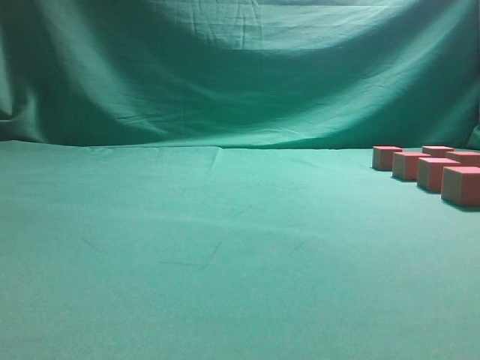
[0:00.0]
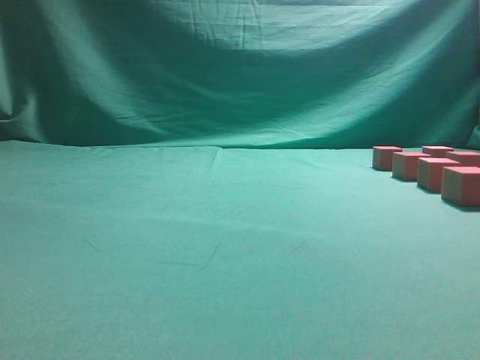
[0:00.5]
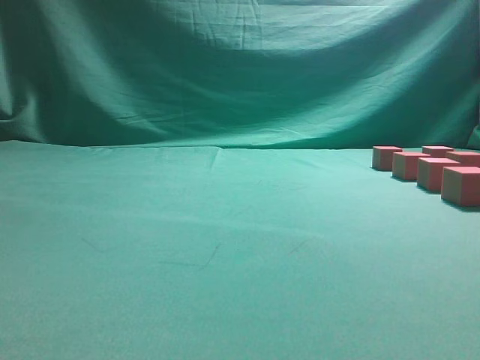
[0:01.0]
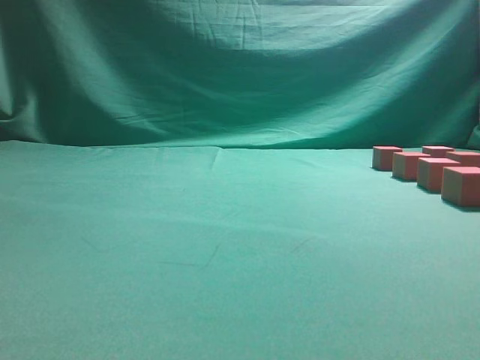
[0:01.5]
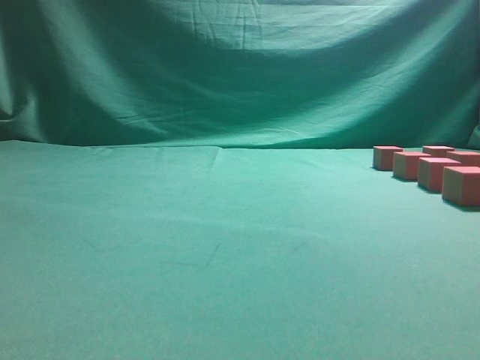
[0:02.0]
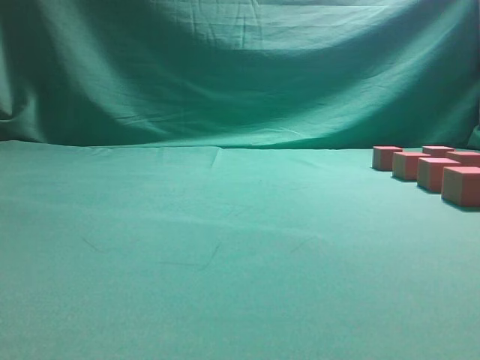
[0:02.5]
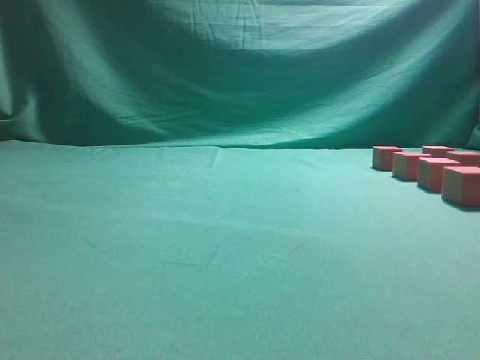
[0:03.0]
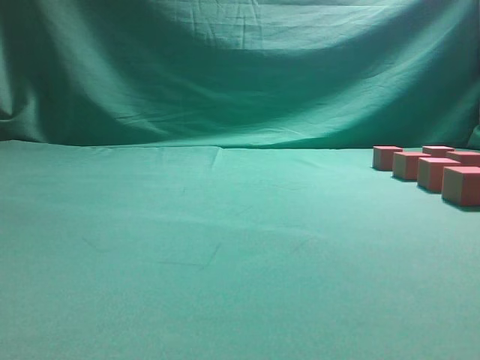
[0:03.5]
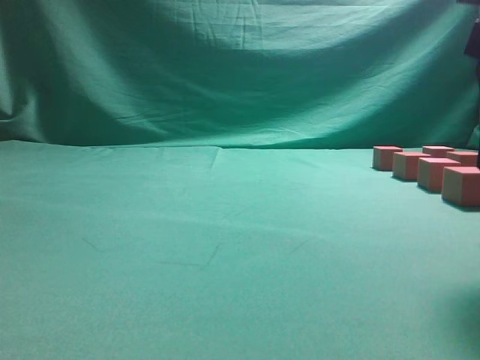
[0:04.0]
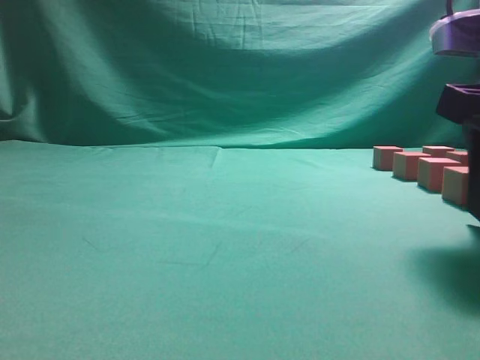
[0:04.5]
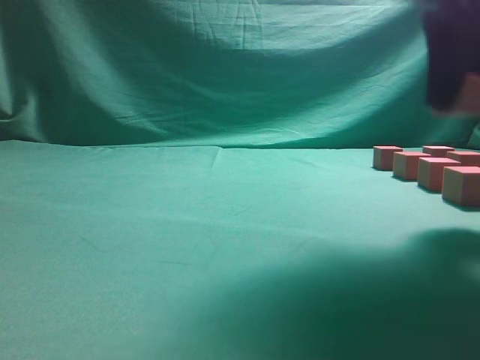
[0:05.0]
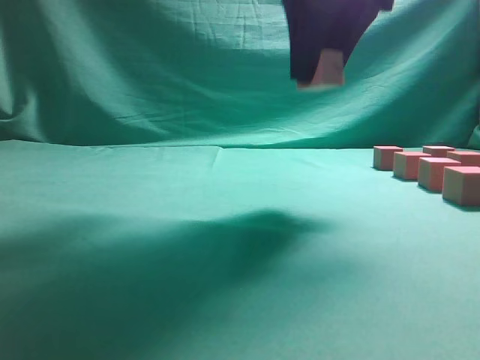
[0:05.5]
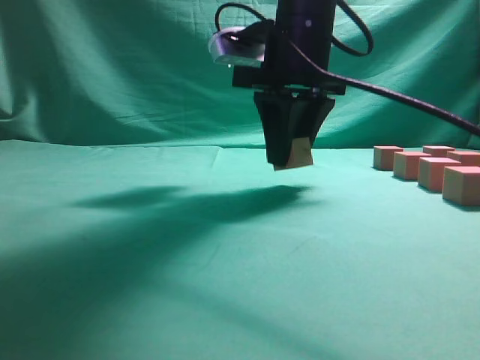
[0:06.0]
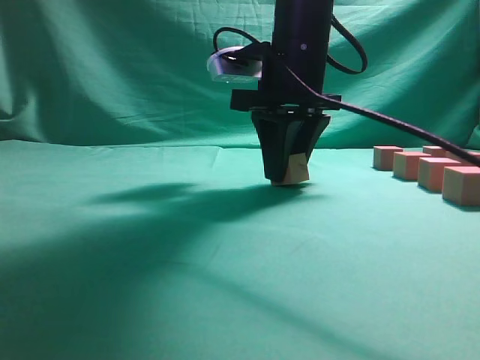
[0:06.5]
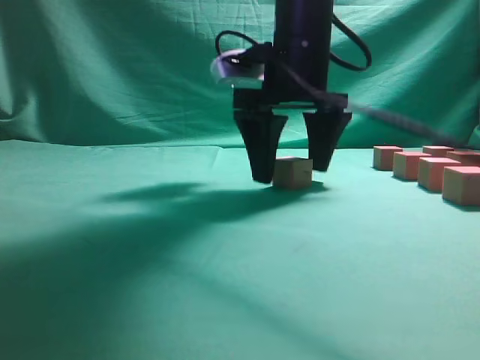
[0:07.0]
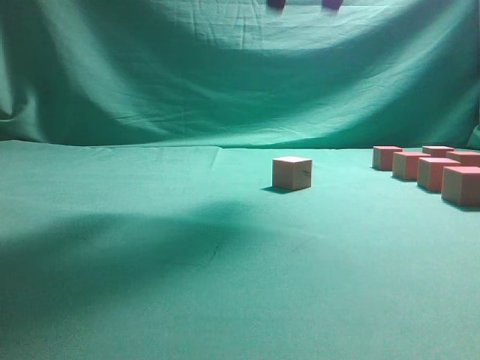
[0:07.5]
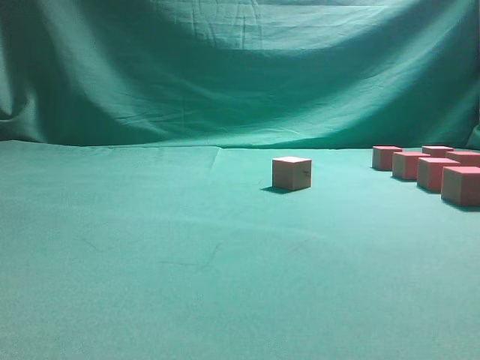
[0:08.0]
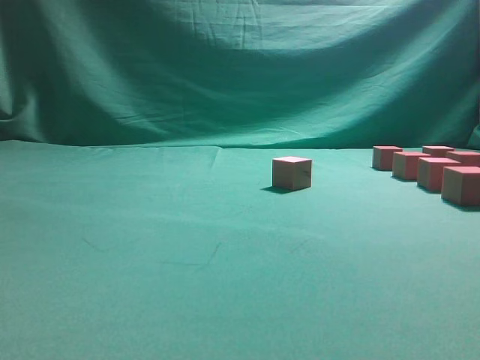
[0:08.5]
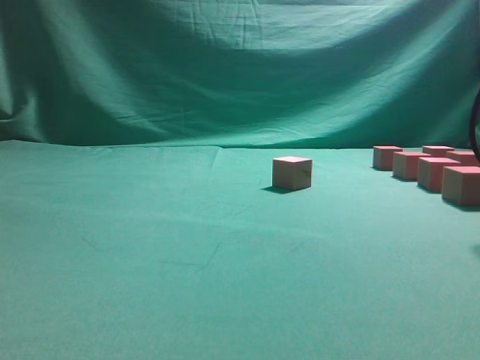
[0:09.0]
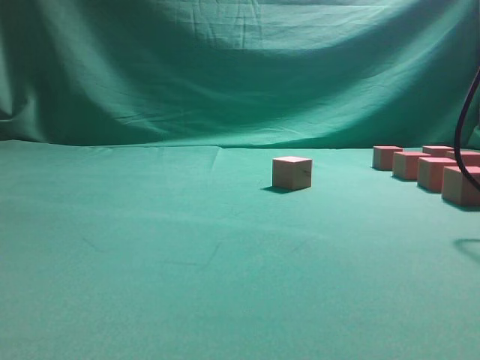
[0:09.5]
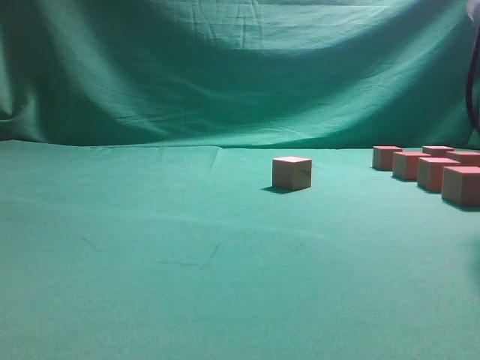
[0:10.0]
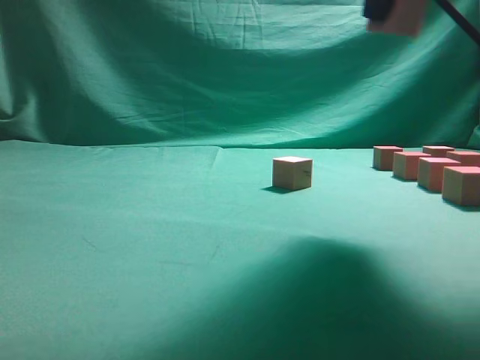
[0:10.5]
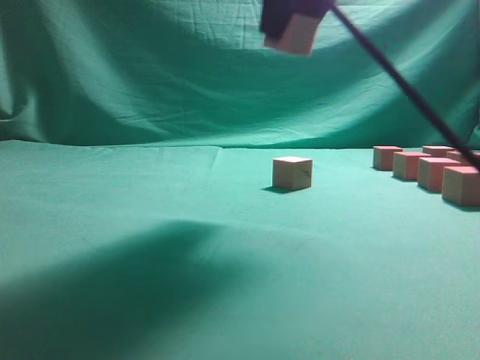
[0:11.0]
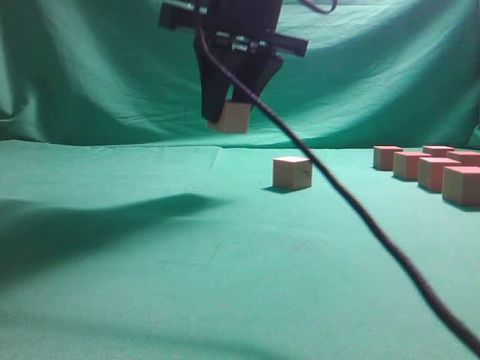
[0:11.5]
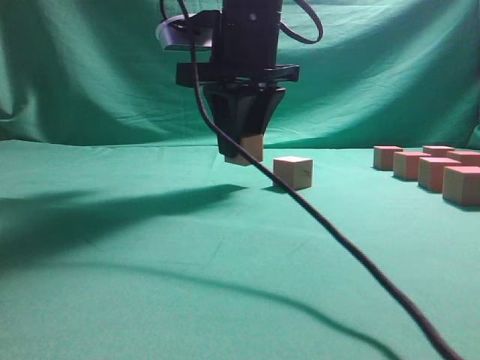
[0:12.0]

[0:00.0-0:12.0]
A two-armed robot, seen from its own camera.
Task of the whole recording: pick up the multiple cubes in two columns one by one and place them in another position on the table.
Step, 0:00.0 to 0:04.5: Pick up the block on the table.
Step, 0:05.0 to 0:07.0: Place the block at the correct position to assemble the letter S.
Step, 0:07.5 to 0:09.5: Pick up the block on the table.
0:02.0 to 0:04.0: The right gripper travels forward and to the left by roughly 20 cm, and opens its fingers.
0:04.0 to 0:06.0: The right gripper goes some 25 cm forward and to the left, and closes.
0:06.0 to 0:08.0: The right gripper heads to the right, upward and backward, covering approximately 30 cm, and opens its fingers.
0:08.0 to 0:10.0: The right gripper is displaced downward by about 15 cm, and closes up.
0:10.0 to 0:12.0: The right gripper heads to the left, covering roughly 25 cm.

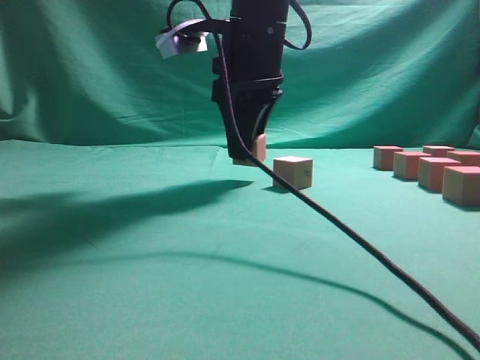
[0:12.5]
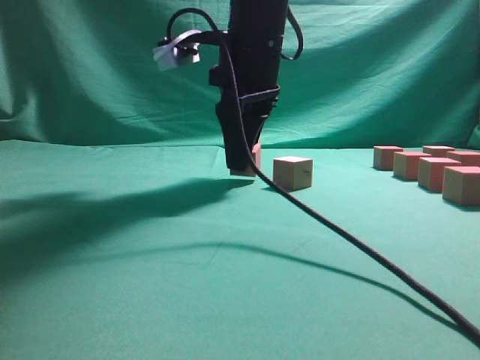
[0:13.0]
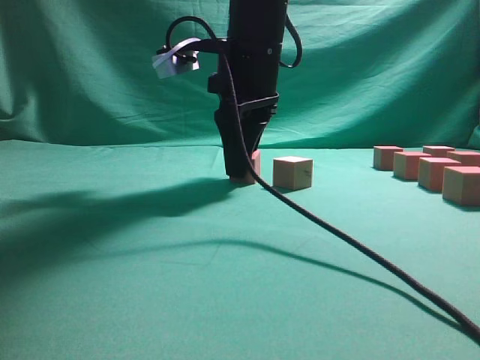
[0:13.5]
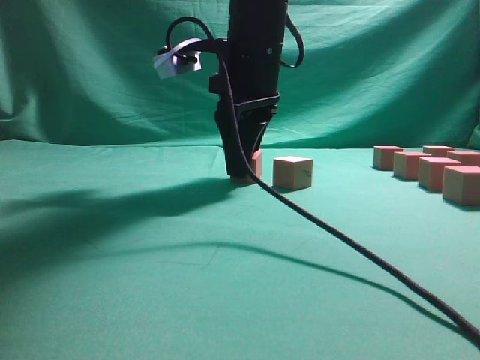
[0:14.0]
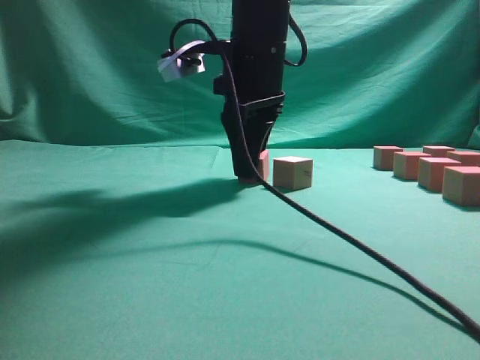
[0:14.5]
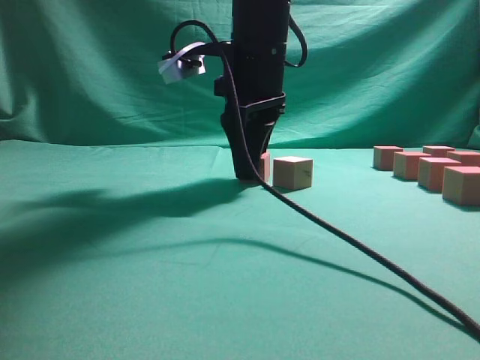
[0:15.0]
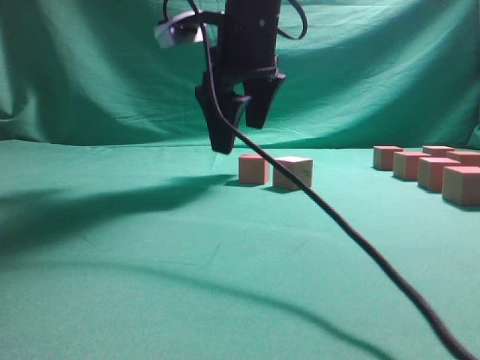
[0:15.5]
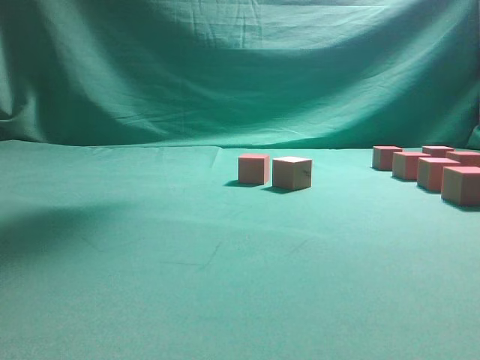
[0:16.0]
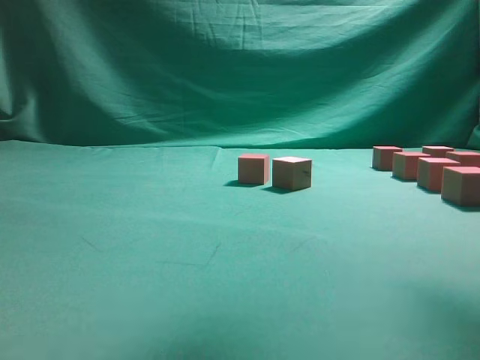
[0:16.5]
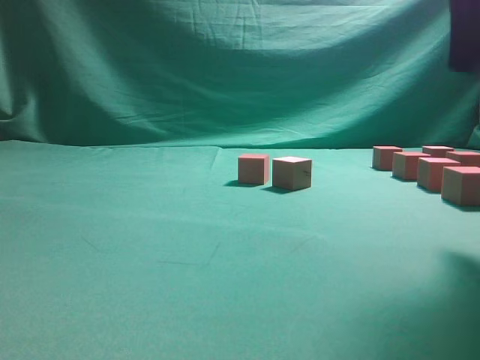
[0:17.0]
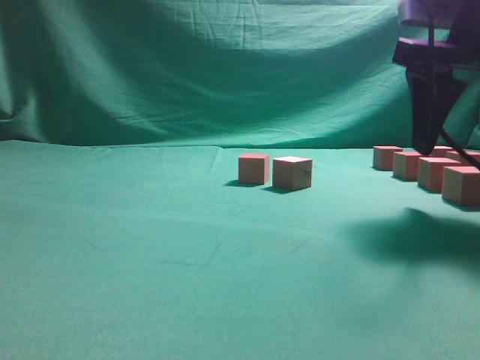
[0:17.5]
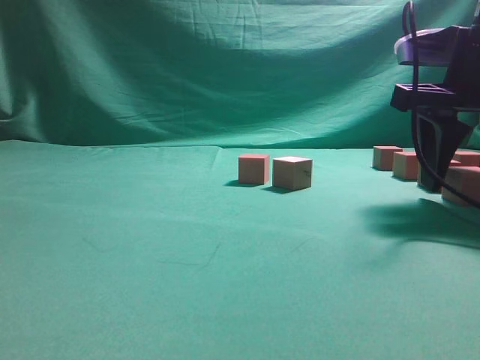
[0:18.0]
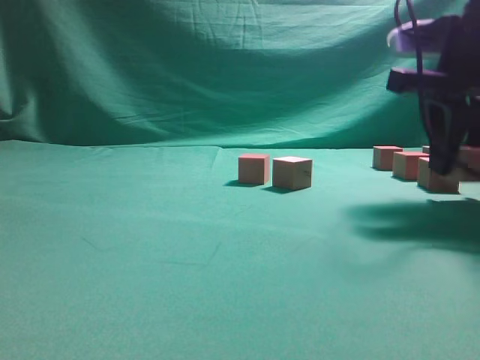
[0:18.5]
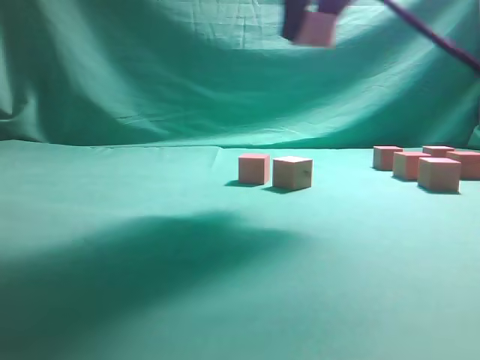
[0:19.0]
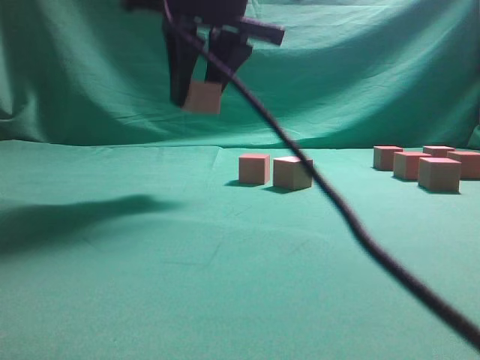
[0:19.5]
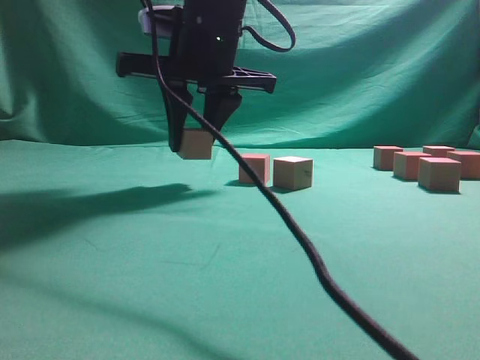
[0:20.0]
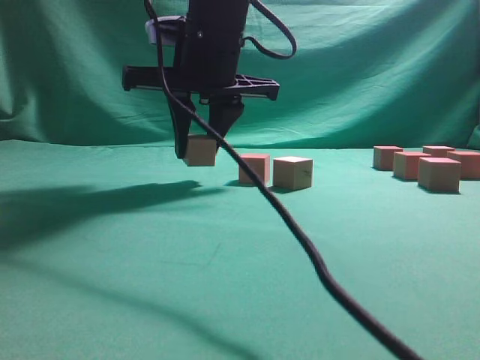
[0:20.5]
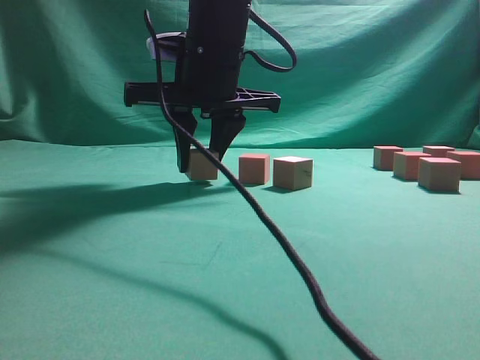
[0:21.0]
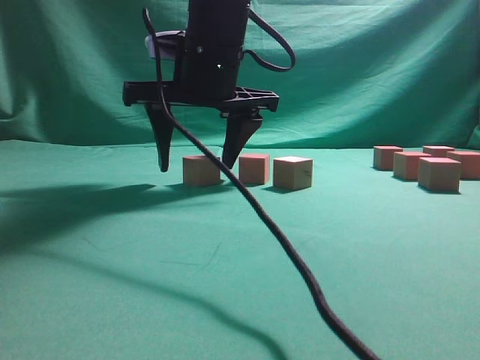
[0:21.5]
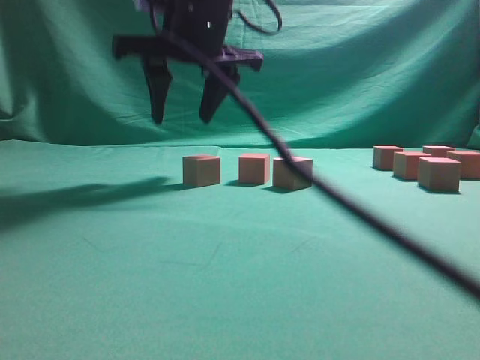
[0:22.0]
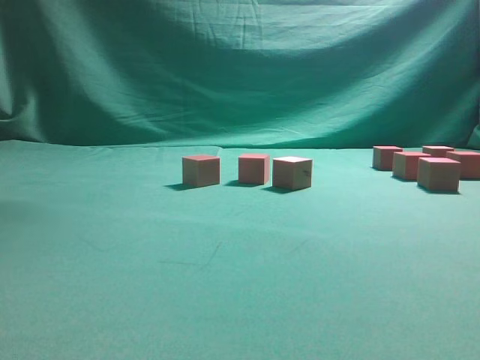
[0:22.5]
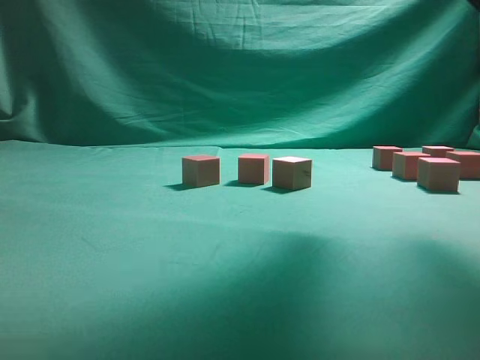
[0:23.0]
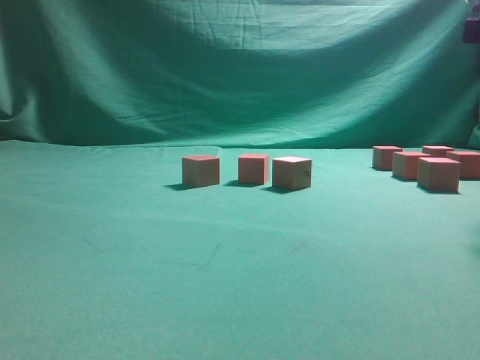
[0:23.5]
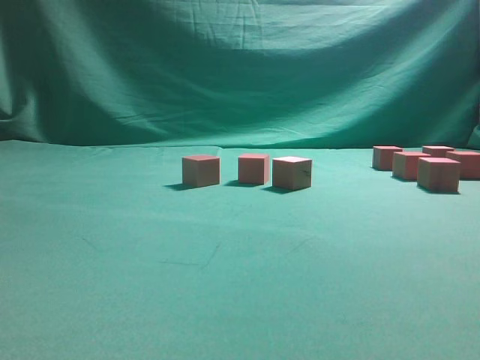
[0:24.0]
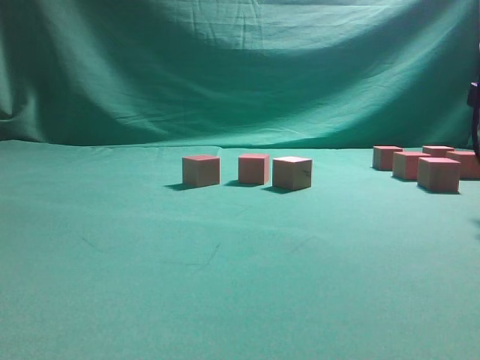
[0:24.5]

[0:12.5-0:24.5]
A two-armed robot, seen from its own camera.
Task of the whole recording: pick up the multiple cubes in two columns one by one and place them in another position on the table.
Step, 0:12.5 to 0:15.5: Place the block at the correct position to assemble the letter S.
Step, 0:16.0 to 0:18.5: Pick up the block on the table.
Step, 0:19.0 to 0:22.0: Place the block at the correct position to assemble the letter S.
0:12.5 to 0:14.5: The grippers move only a little.
0:14.5 to 0:16.5: The right gripper shifts about 25 cm upward, to the right and backward, and opens.
0:16.5 to 0:18.5: The right gripper goes about 20 cm downward, and closes its fingers.
0:18.5 to 0:20.5: The right gripper travels to the left by some 25 cm.
0:20.5 to 0:22.5: The right gripper is displaced upward by approximately 20 cm.

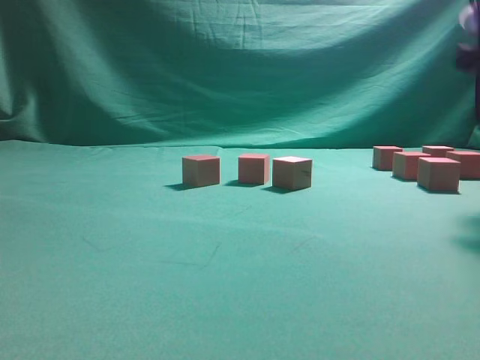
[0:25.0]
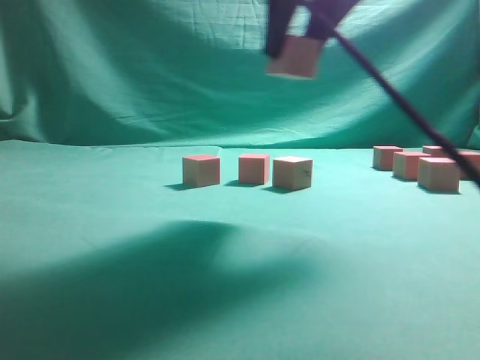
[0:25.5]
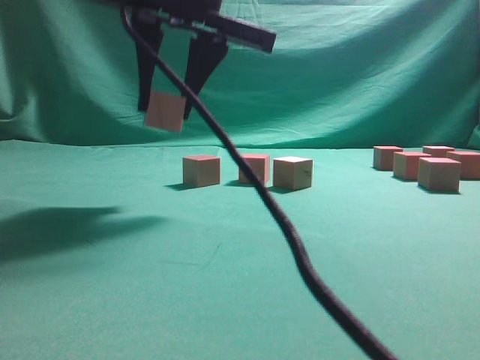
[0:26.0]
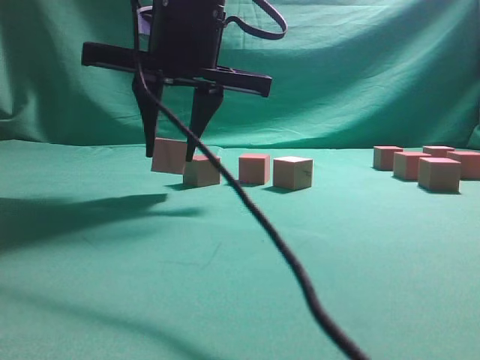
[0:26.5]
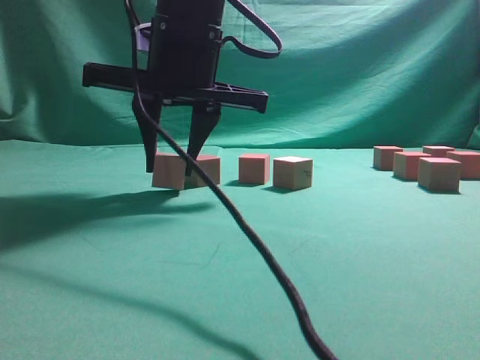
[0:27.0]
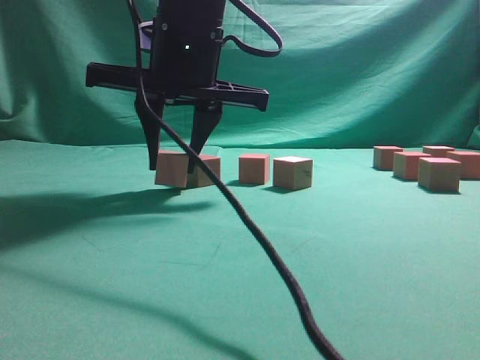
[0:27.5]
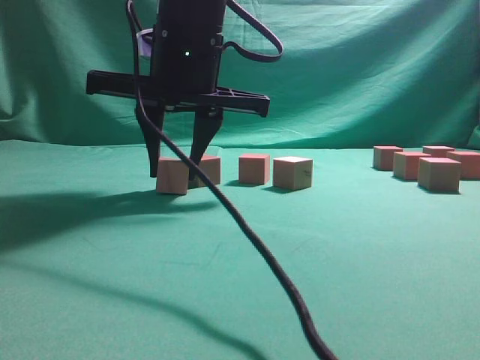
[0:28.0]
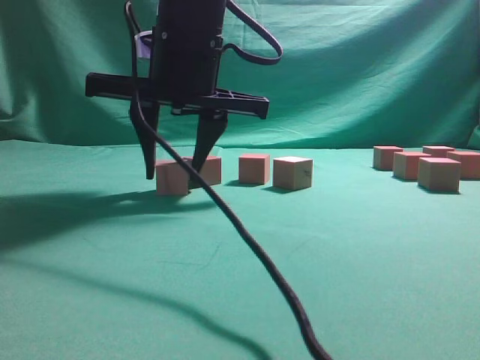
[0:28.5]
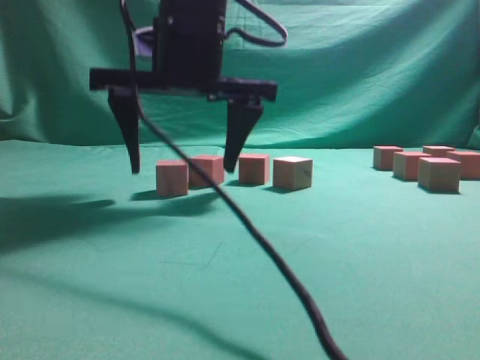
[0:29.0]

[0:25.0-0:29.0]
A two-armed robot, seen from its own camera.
Task of the whole recording: pick up the multiple cubes in two columns one by one and place them in another position on the table.
0:25.0 to 0:27.0: The right gripper heads to the left, covering approximately 30 cm.
0:27.0 to 0:29.0: The right gripper opens its fingers.
